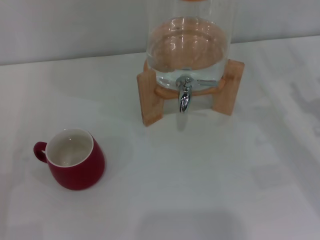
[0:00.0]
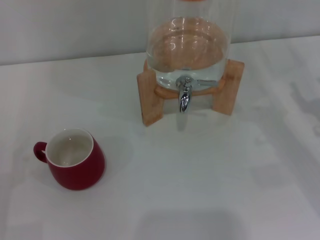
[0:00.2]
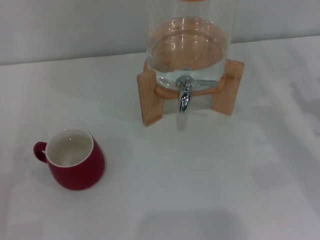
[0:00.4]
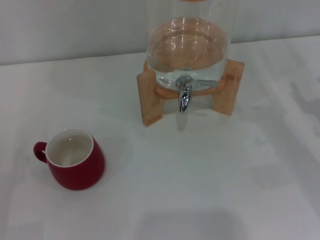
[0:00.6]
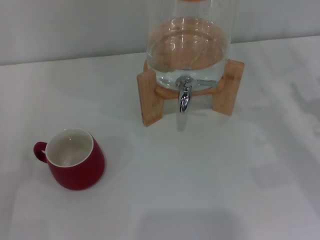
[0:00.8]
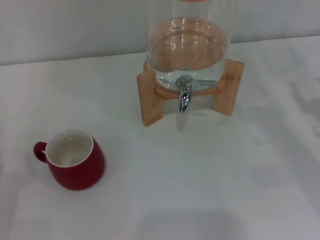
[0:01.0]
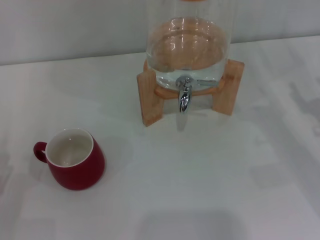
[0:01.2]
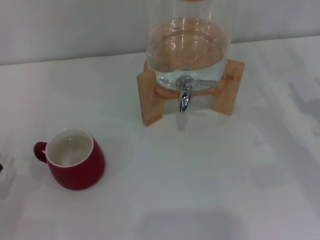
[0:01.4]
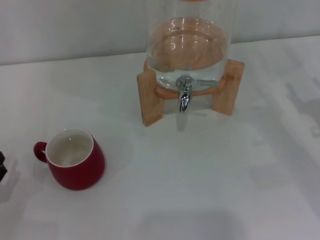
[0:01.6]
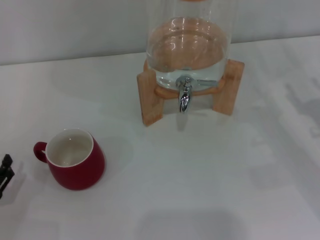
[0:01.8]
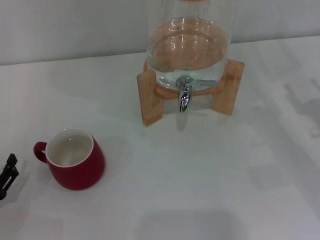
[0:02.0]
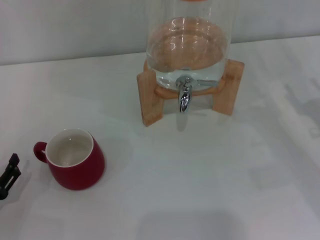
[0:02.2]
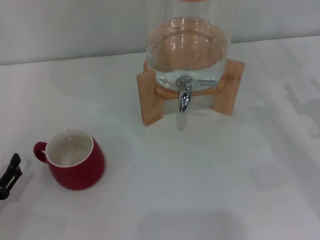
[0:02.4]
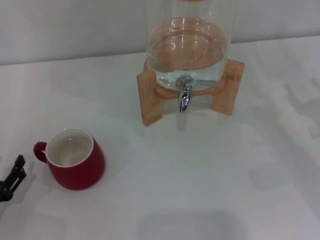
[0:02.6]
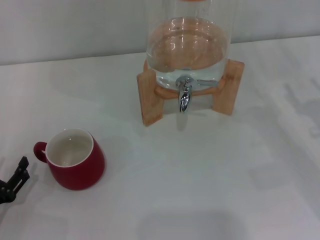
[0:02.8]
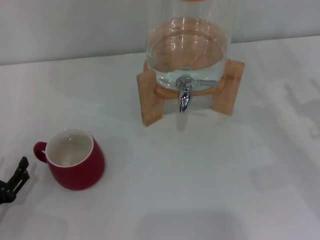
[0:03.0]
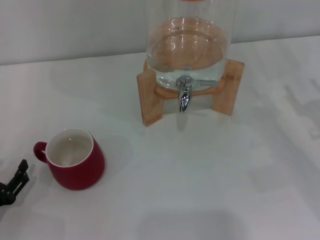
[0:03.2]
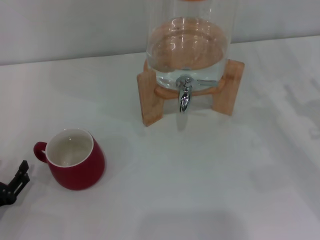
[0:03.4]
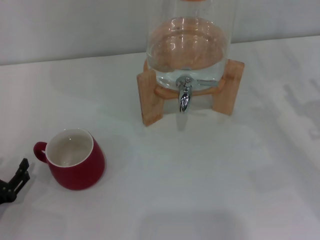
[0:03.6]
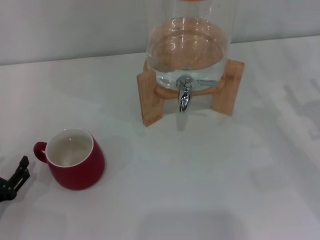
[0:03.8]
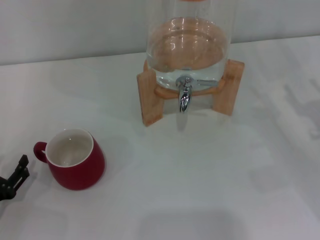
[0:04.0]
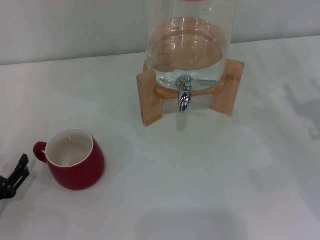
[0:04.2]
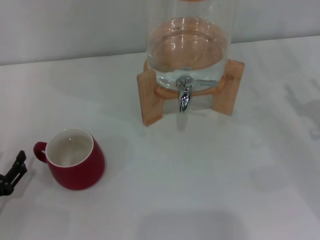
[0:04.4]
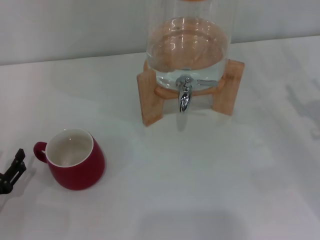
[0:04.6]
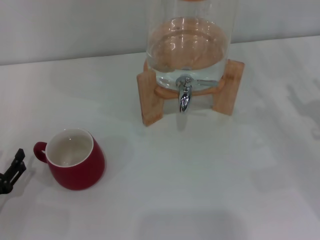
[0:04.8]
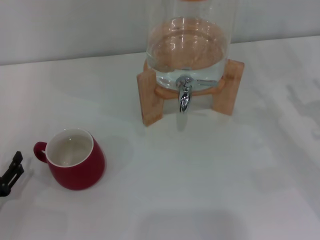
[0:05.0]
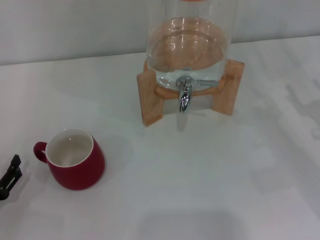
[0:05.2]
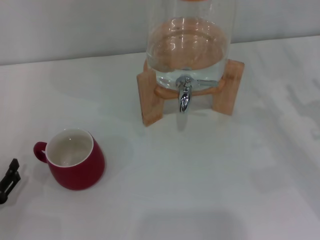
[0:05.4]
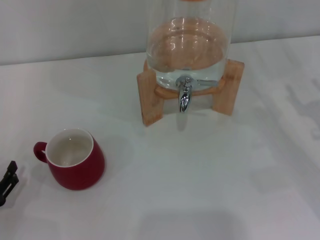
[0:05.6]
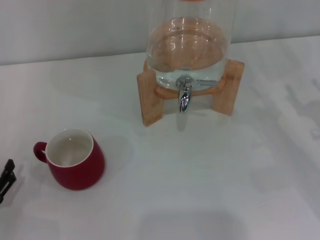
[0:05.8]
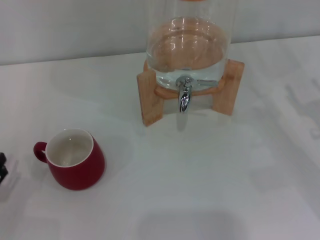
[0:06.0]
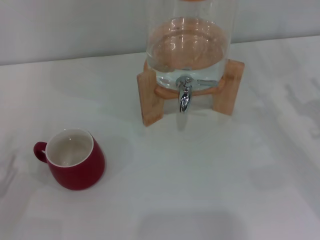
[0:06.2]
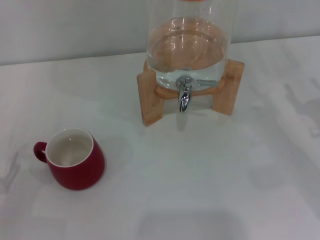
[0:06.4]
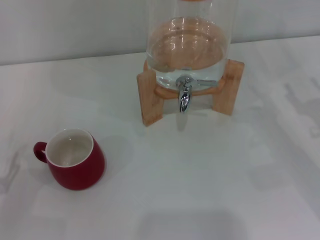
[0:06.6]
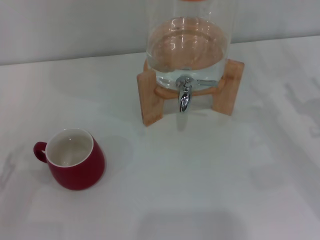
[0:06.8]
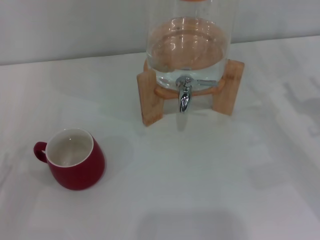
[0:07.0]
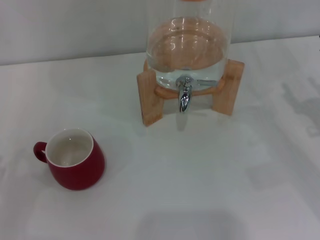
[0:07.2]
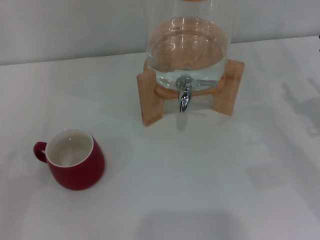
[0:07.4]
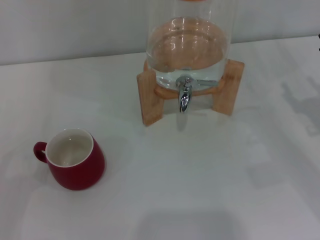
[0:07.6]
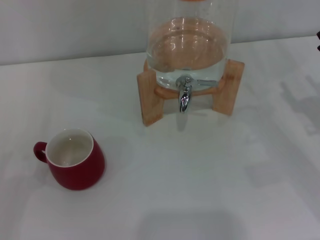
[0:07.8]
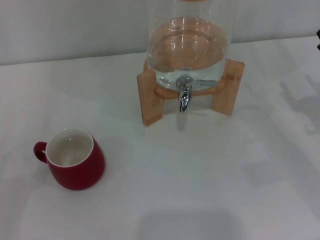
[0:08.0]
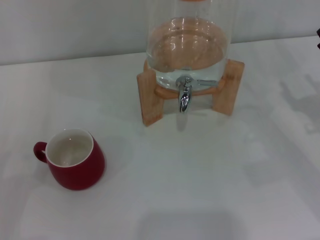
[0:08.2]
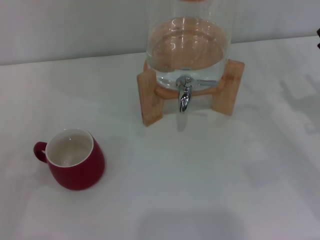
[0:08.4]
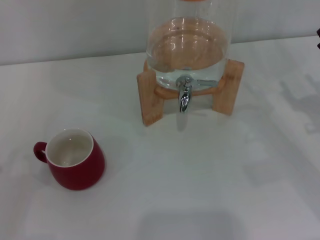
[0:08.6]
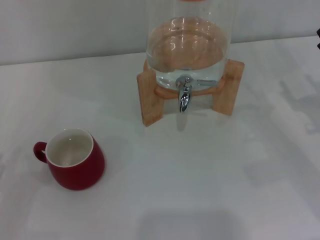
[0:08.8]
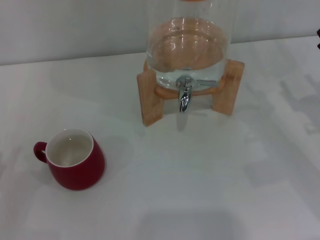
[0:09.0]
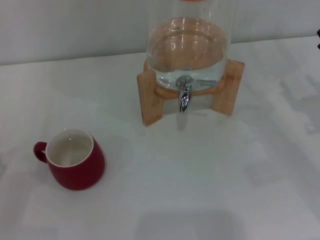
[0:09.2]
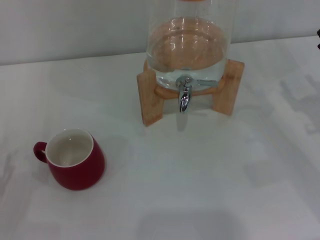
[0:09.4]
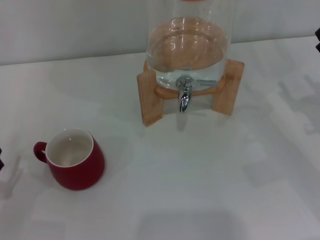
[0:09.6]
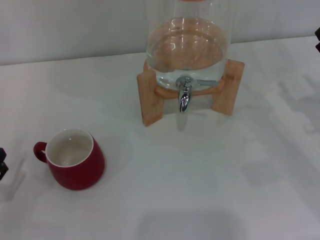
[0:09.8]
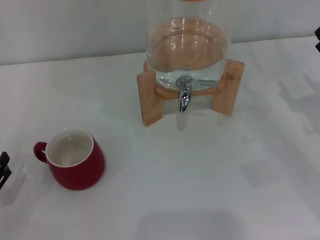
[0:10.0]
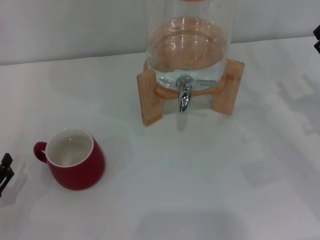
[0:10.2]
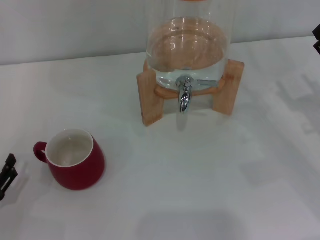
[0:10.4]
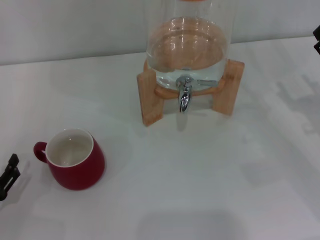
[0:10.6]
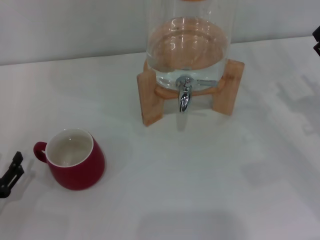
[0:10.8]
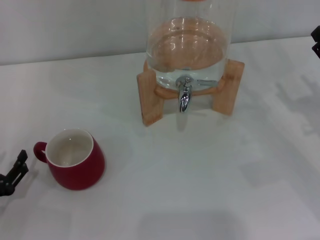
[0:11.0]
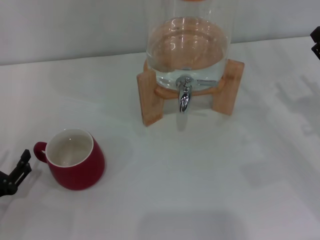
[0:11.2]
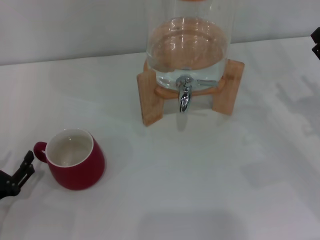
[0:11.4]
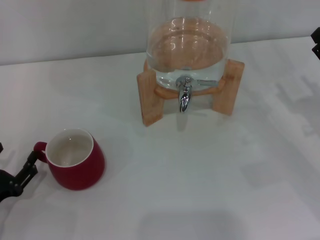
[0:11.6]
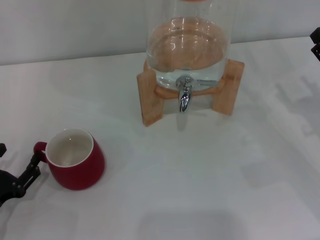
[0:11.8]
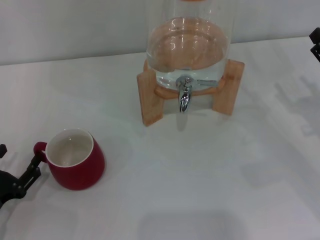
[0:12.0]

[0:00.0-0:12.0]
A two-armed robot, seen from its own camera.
Task of the whole recording: the left gripper pick up the red cup and place it horizontally under the faucet, the right gripper turn on the faucet to fill the cup, and then turn off the faucet.
0:01.6 to 0:03.0: The grippers move only a little.
0:03.0 to 0:04.4: Neither gripper changes place.
0:04.4 to 0:06.0: There are only small adjustments of the grippers.
0:10.4 to 0:12.0: The grippers move only a little.

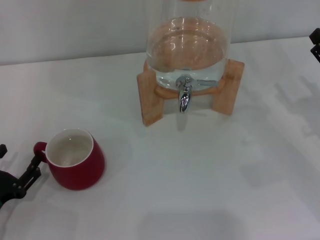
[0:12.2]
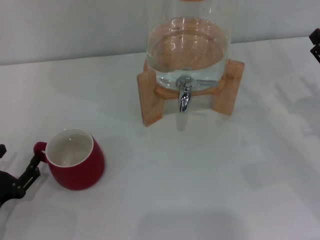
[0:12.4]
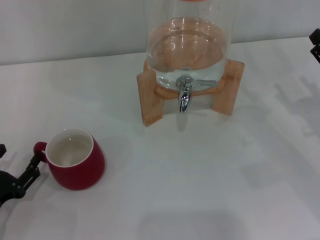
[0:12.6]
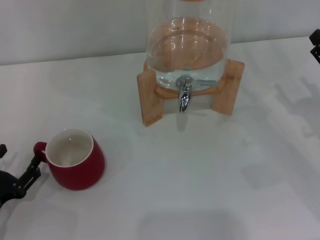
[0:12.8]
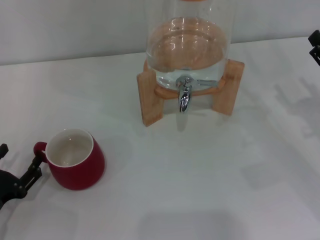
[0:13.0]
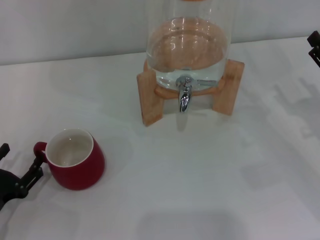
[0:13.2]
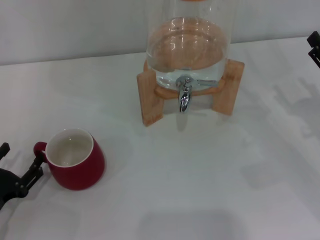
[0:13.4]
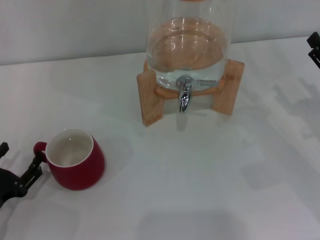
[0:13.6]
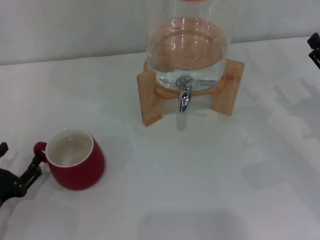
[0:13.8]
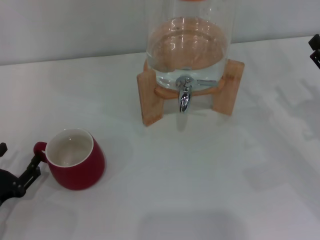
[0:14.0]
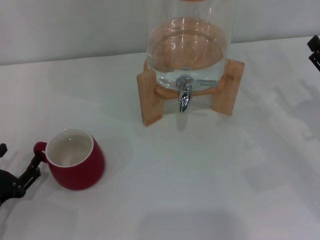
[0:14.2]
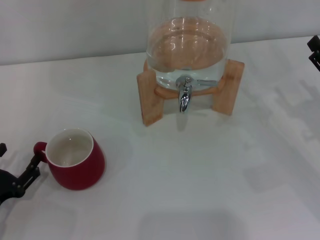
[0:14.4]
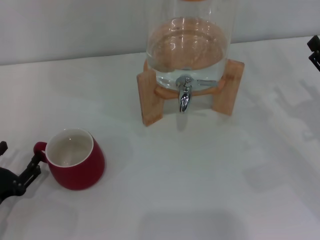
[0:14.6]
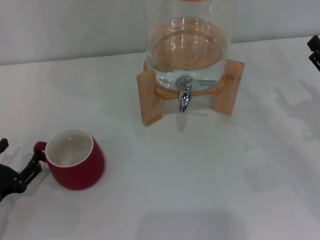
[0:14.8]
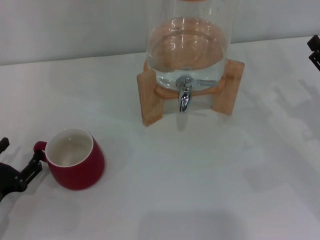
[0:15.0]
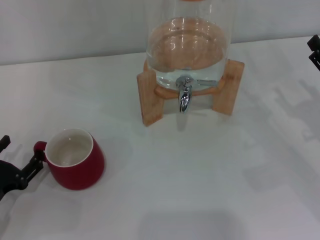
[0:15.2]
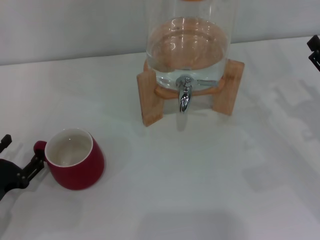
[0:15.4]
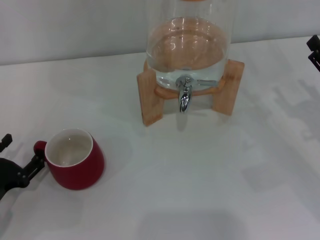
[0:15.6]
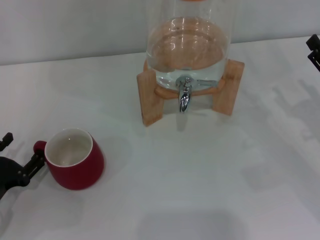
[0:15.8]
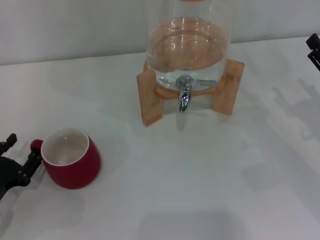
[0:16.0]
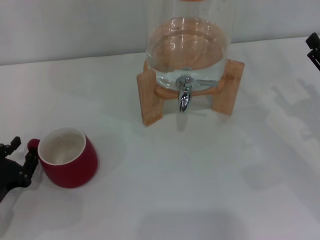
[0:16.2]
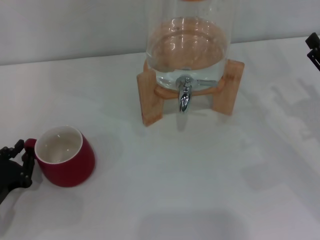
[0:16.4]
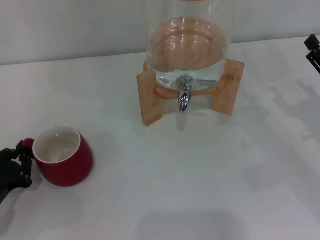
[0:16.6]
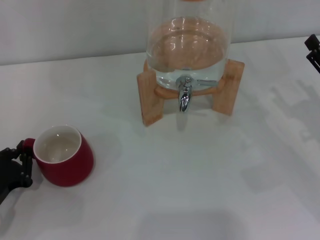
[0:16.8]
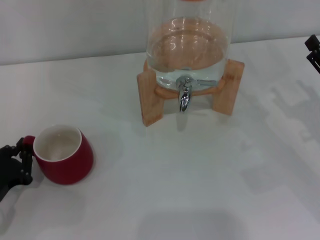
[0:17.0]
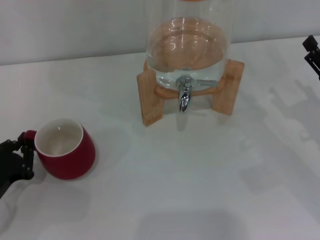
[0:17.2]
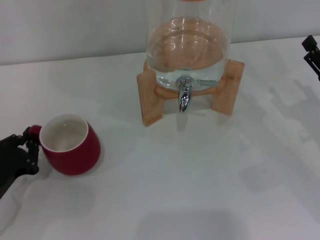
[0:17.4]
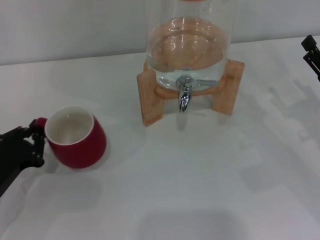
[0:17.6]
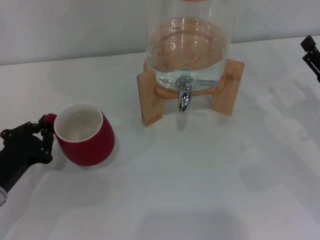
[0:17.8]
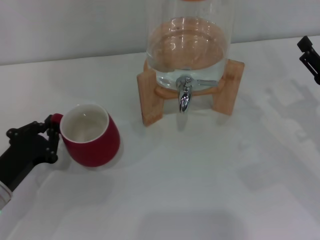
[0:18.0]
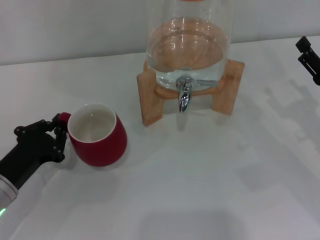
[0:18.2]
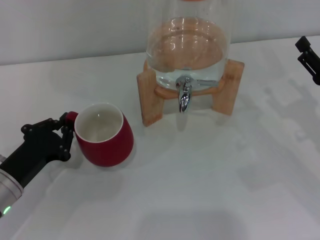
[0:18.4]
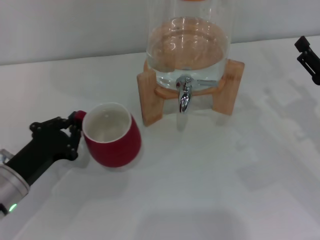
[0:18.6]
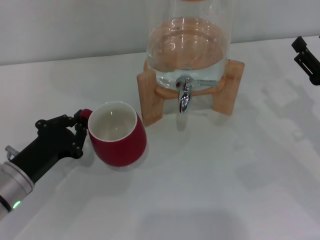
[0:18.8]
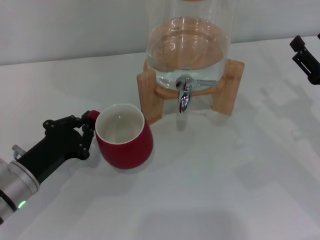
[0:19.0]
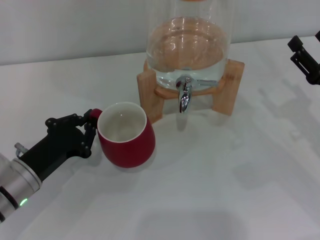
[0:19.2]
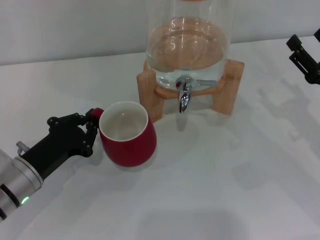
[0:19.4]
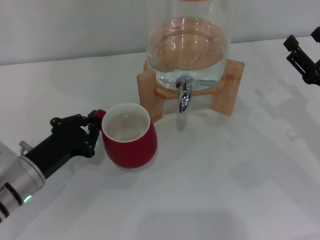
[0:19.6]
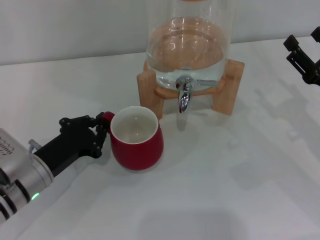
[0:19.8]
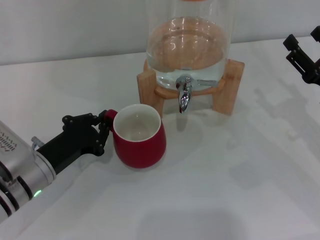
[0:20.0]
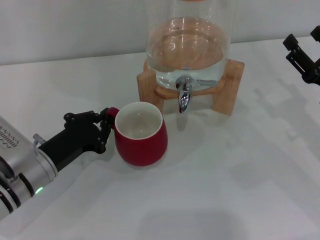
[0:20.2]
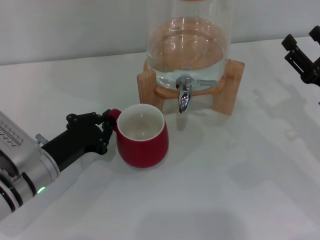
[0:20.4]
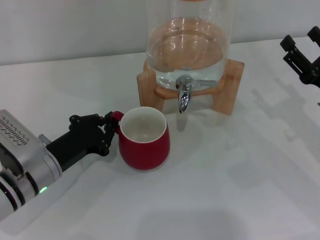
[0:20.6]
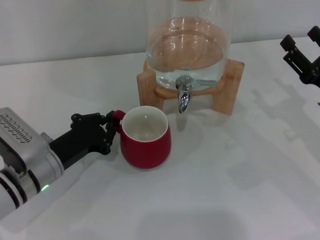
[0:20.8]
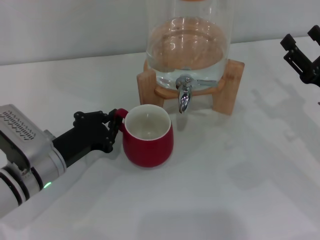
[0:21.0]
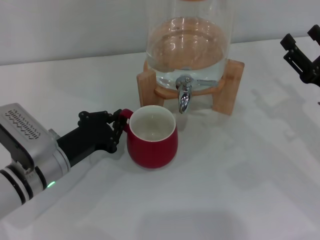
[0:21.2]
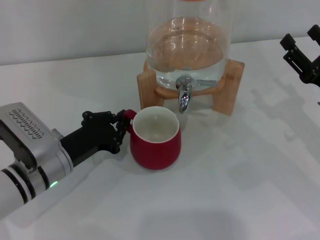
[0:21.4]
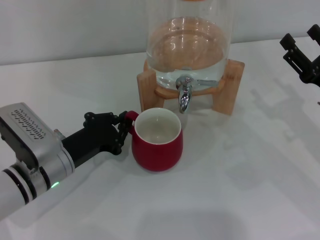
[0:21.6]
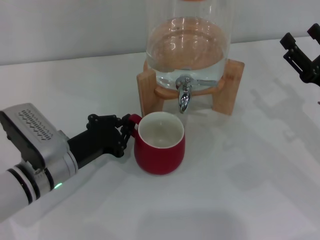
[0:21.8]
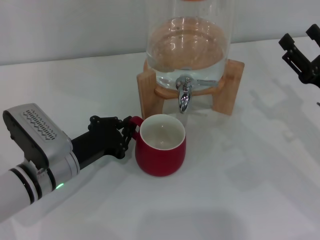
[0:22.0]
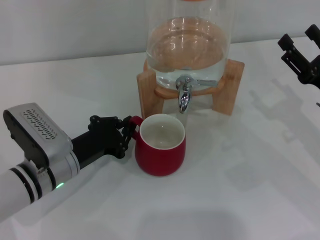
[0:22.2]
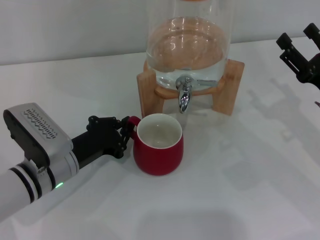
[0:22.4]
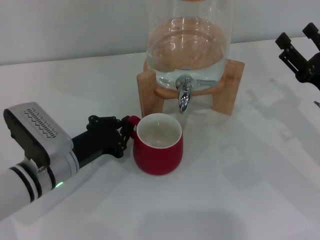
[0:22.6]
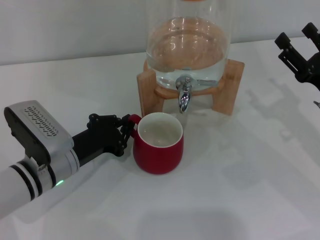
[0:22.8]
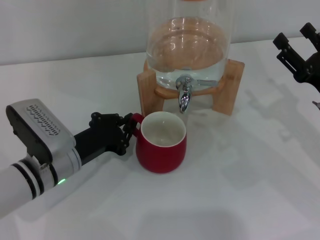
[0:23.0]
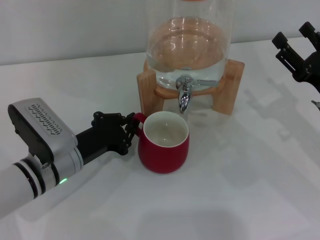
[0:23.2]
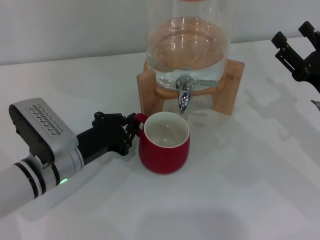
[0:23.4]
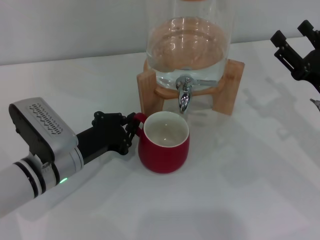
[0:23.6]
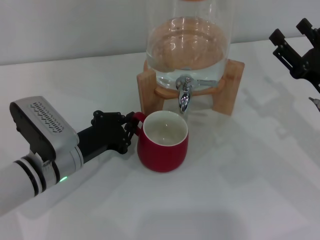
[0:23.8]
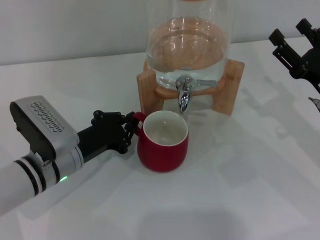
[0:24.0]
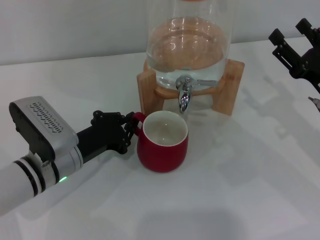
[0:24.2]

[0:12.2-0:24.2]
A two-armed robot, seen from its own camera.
Task of the whole recording: the left gripper pick up the red cup and place it horizontally under the faucet, the right gripper turn on the faucet to fill the cup, and then turn off the faucet.
0:12.2 to 0:13.8: Both grippers stay put.
0:13.8 to 0:15.2: Both grippers stay about where they are.
0:15.2 to 0:16.6: The left gripper closes its fingers.
0:16.6 to 0:18.2: The left gripper shifts by about 5 cm.
0:18.2 to 0:19.8: The left gripper shifts by about 5 cm.
0:19.8 to 0:21.2: There are only small adjustments of the grippers.
0:21.2 to 0:22.6: Neither gripper changes place.
0:22.6 to 0:24.2: The two grippers keep their place.
